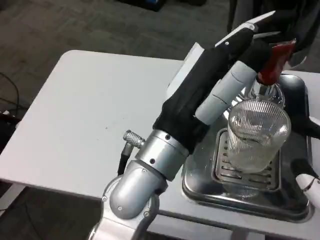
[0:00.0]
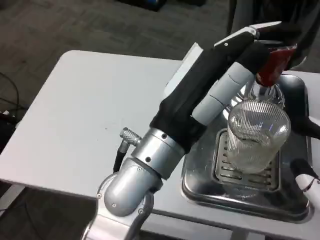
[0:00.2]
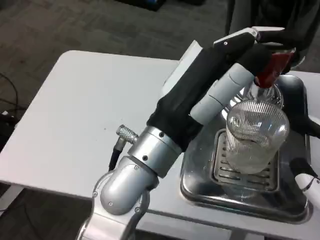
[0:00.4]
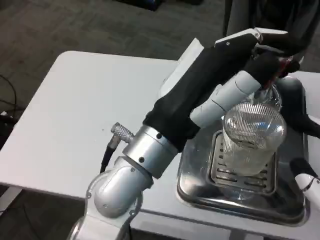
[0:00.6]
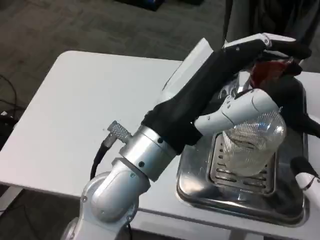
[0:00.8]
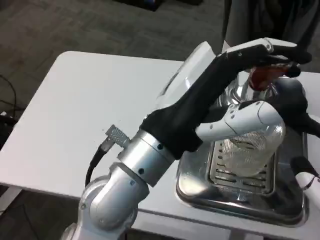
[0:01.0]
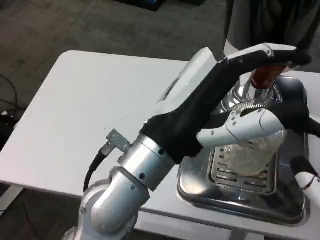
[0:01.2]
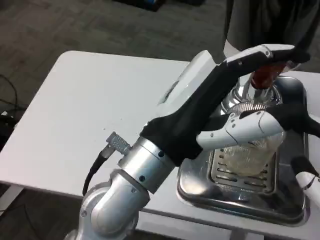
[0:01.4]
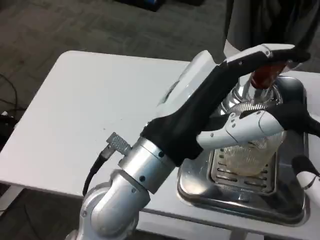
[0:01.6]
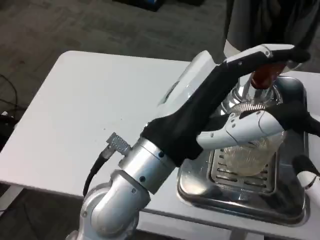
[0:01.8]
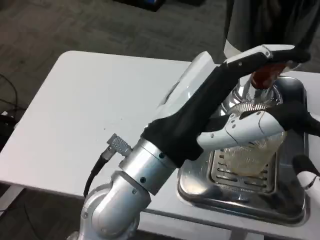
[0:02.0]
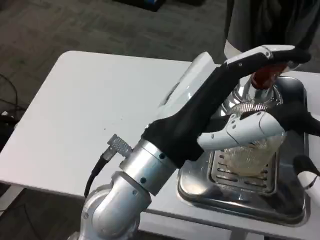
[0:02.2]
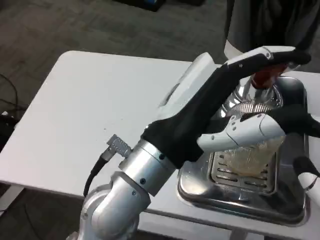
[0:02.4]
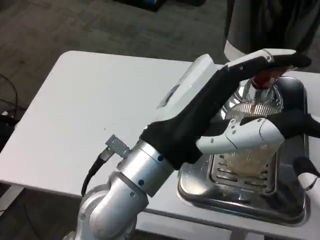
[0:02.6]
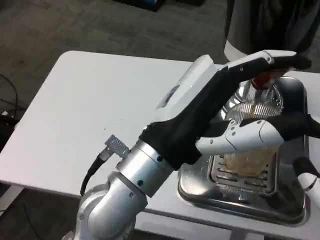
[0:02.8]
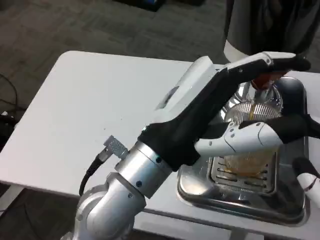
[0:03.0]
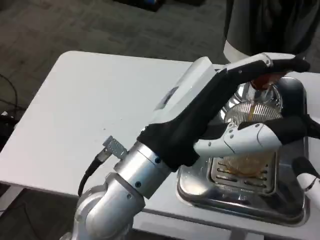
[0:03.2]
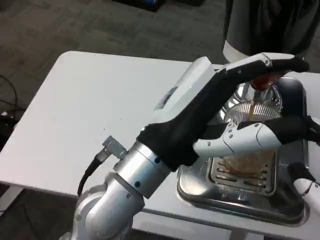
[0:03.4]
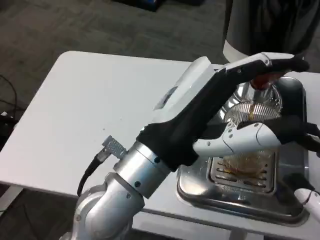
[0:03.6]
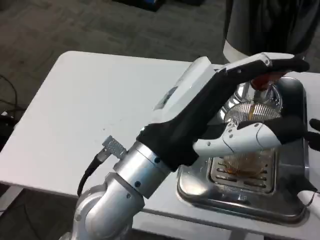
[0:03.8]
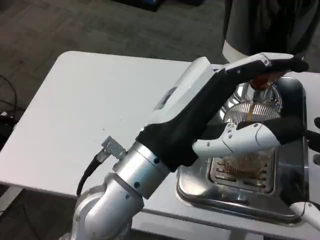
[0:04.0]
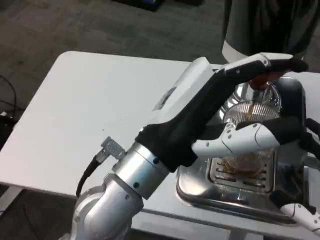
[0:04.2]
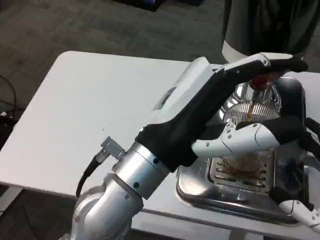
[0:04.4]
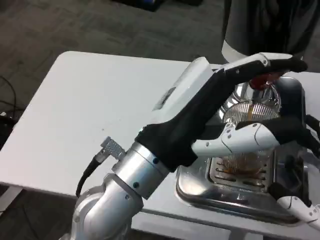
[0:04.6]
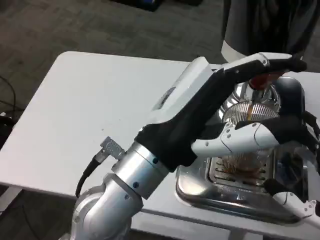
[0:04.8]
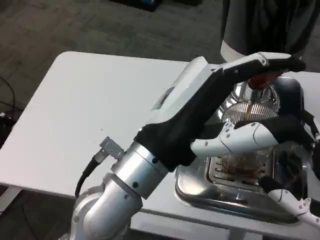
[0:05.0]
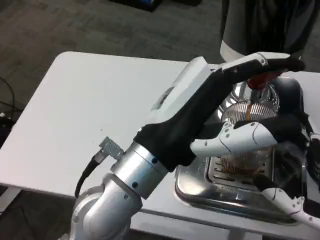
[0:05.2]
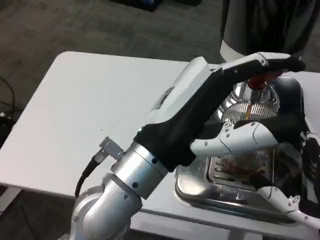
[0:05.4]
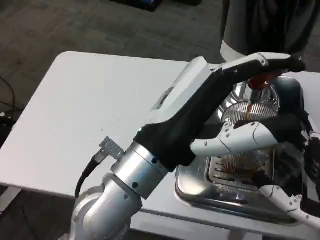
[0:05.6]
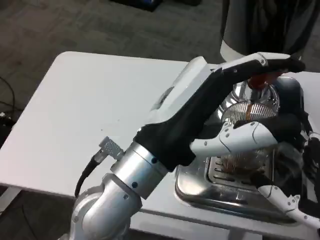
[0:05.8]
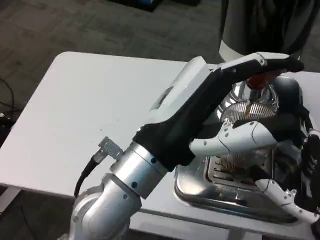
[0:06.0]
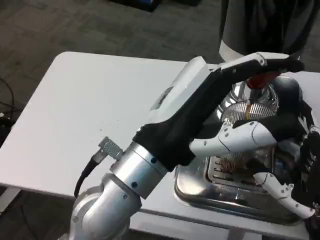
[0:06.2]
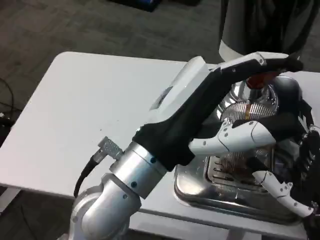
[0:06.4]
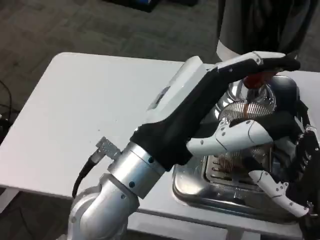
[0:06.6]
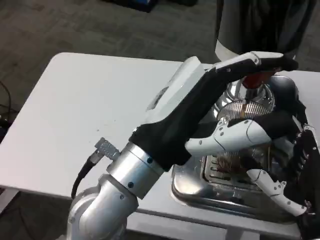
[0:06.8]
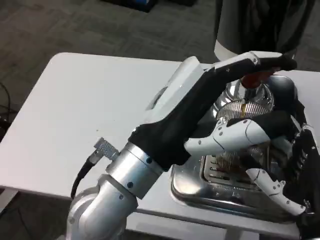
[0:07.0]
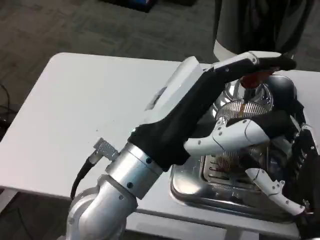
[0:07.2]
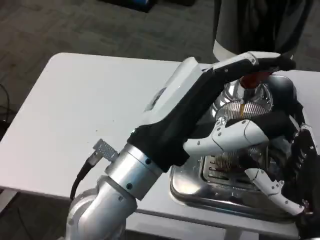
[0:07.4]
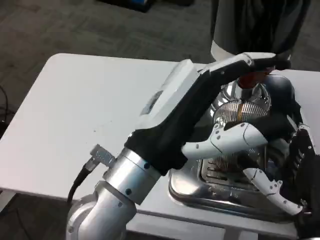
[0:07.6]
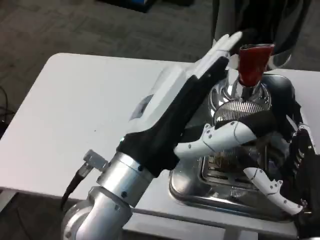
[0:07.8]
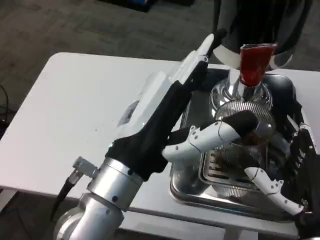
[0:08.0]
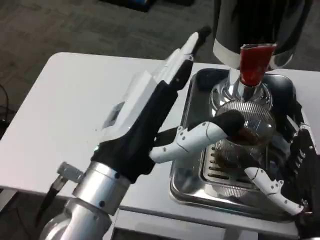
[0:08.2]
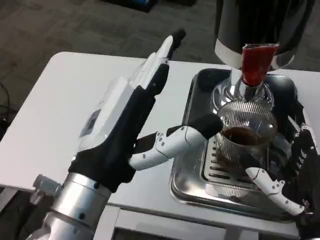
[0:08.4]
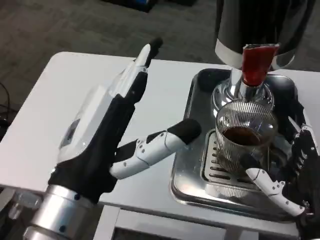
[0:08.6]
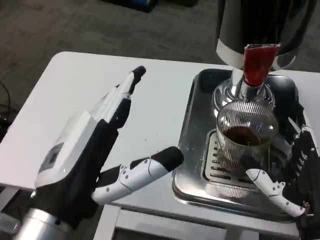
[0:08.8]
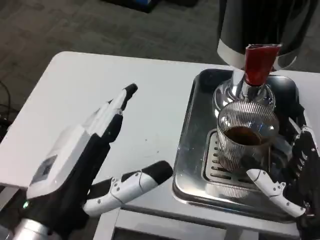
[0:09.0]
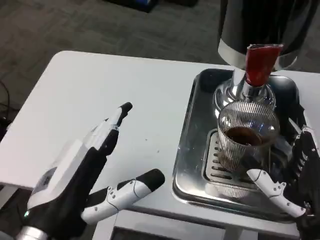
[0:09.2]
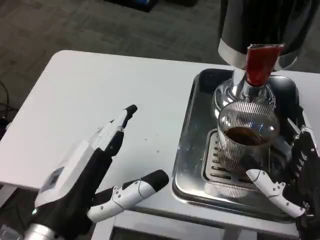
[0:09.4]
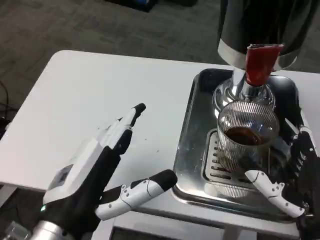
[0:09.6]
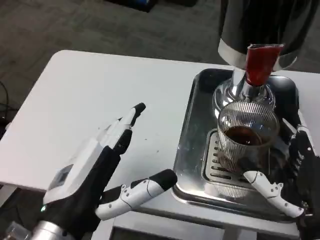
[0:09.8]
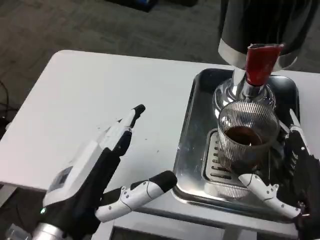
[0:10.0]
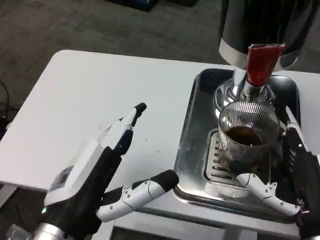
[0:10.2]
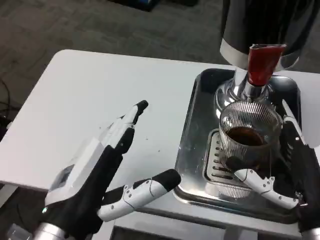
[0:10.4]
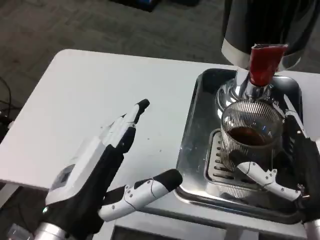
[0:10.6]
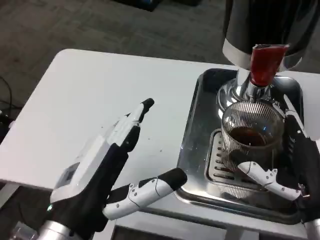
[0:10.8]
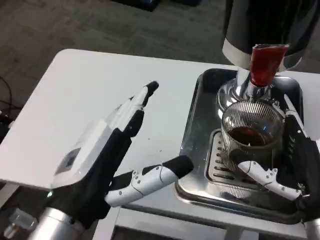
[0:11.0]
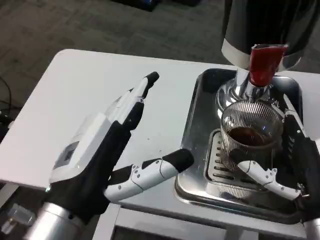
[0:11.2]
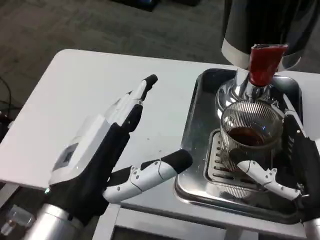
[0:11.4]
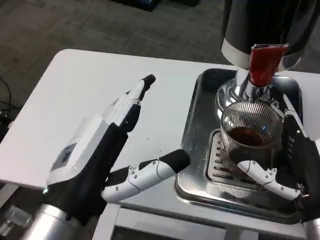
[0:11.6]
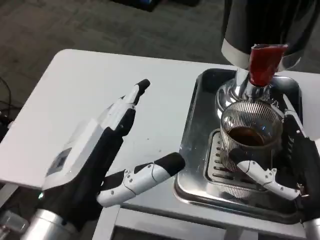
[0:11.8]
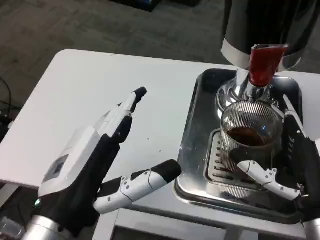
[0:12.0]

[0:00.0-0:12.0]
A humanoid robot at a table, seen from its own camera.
Task of the whole recording: Grasp the cup under the faucet to collect the drink, then remove the cup.
0:01.6 to 0:03.0: Both hands stay put.
0:03.0 to 0:04.4: The right hand moves about 5 cm.
0:04.4 to 0:06.0: The right hand ends up about 5 cm from where it was.
0:07.6 to 0:09.0: The left hand moves to the left and backward, approximately 10 cm.
0:10.4 to 0:12.0: There are only small adjustments of the hands.

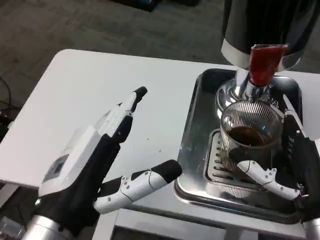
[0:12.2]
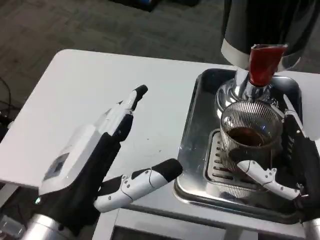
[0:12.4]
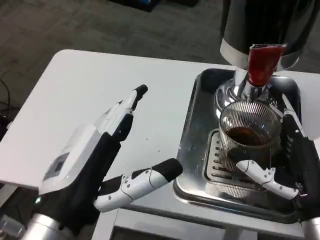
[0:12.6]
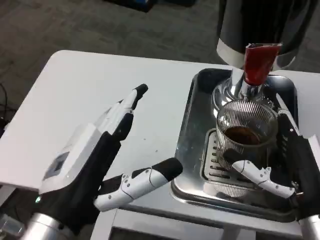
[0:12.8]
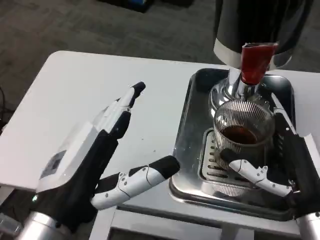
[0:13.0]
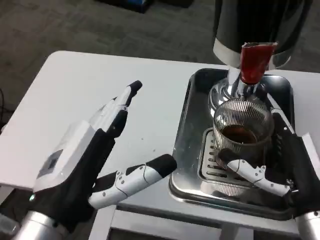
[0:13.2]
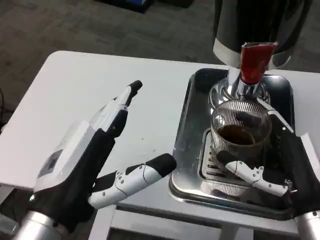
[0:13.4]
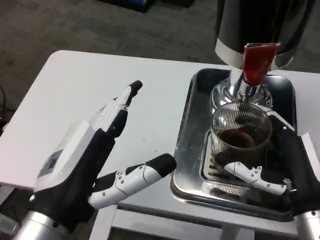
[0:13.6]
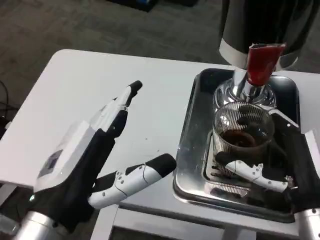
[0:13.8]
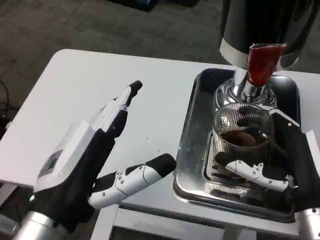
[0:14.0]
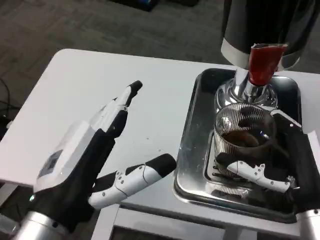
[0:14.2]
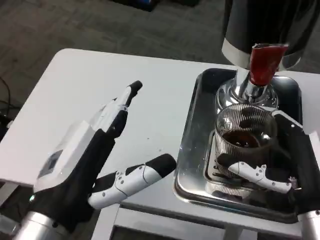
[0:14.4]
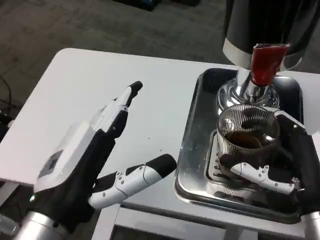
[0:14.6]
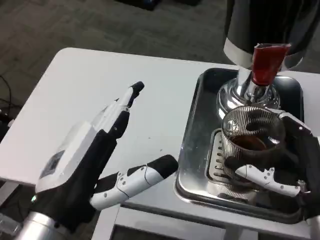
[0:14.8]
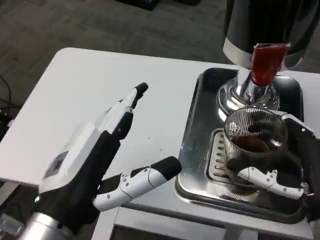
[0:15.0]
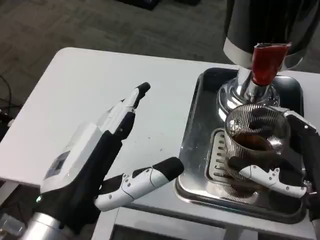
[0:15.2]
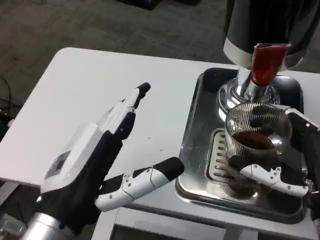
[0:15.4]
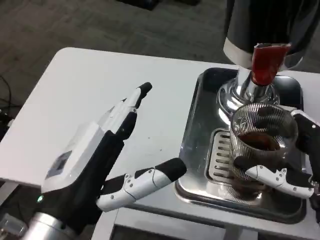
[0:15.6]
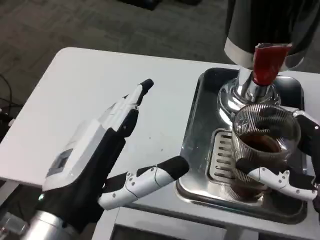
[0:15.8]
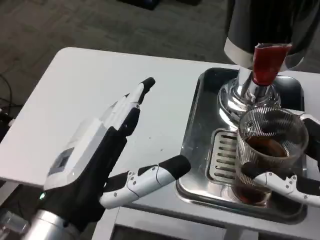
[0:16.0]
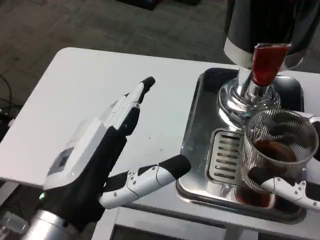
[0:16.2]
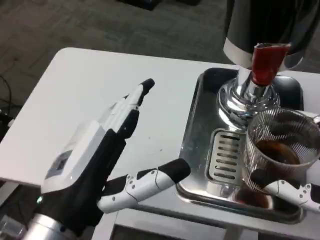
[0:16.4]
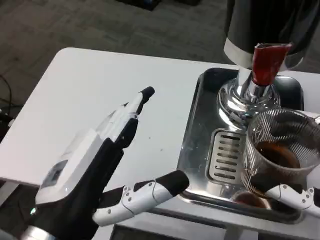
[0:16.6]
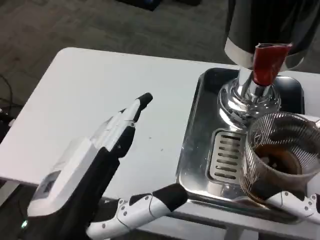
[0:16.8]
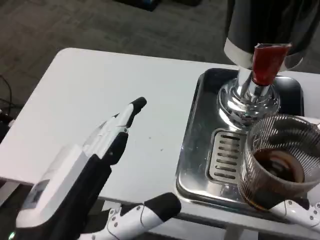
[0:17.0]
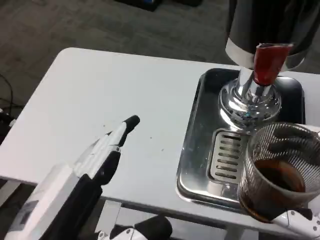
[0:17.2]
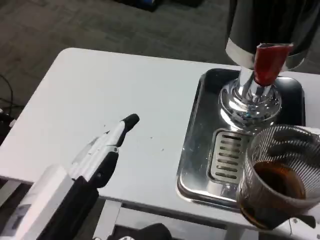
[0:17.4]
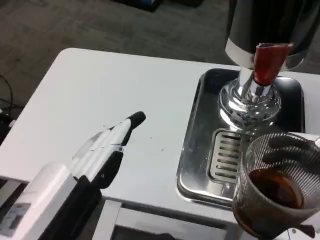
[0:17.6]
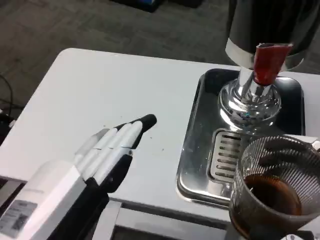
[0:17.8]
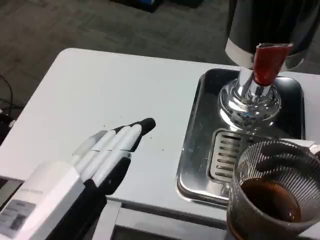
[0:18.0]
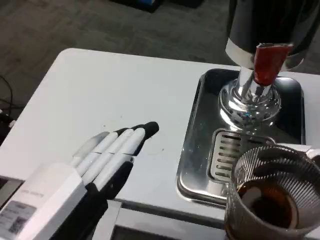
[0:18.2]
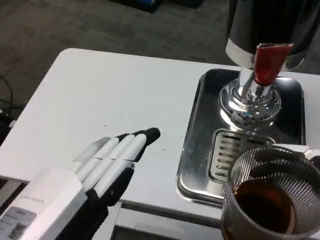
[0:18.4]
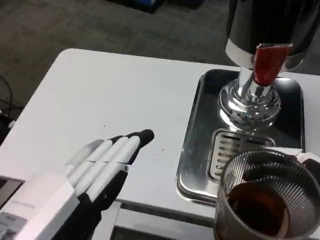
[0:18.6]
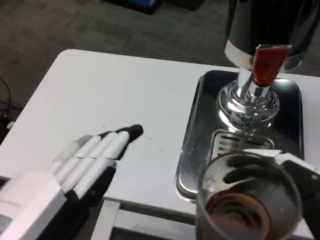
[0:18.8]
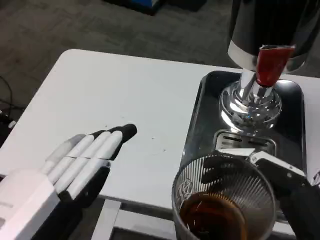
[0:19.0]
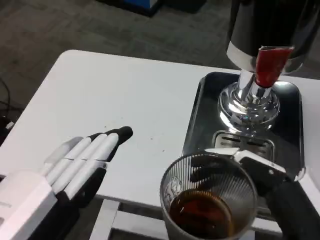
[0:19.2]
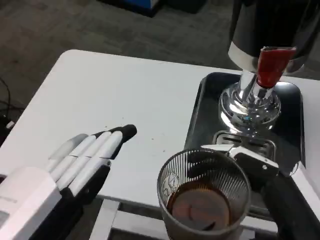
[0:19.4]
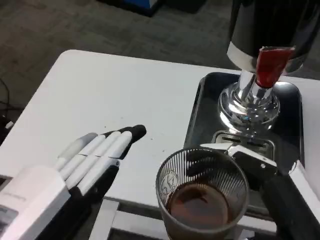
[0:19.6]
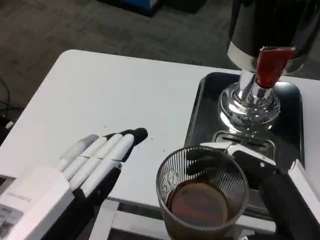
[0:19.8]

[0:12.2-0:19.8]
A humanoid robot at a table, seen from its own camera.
Task of the whole recording: Grasp the cup under the faucet to collect the drink, then remove the cup.
0:15.2 to 0:16.8: The right hand is displaced backward by approximately 5 cm.
0:16.8 to 0:18.2: The hands both shift backward by roughly 5 cm.
0:18.2 to 0:19.8: The right hand moves roughly 5 cm.

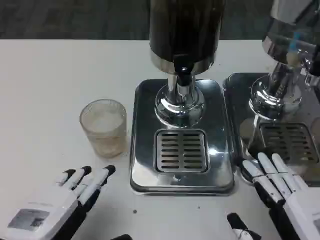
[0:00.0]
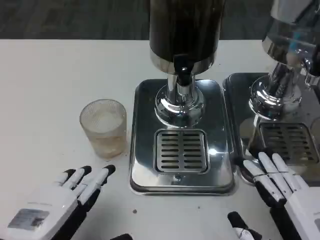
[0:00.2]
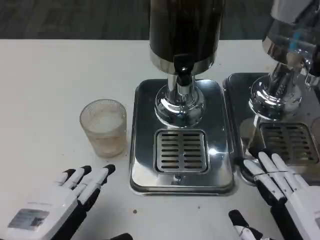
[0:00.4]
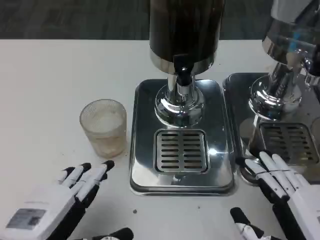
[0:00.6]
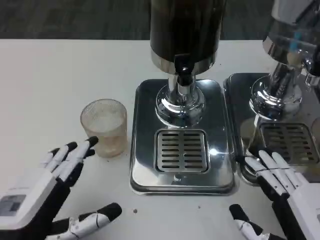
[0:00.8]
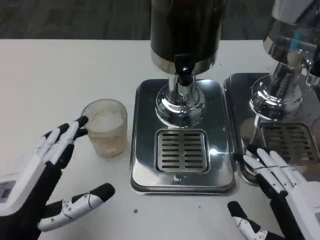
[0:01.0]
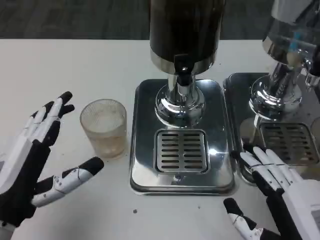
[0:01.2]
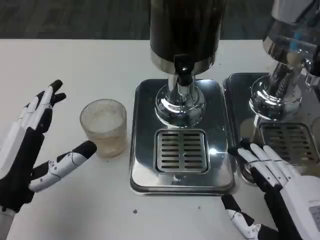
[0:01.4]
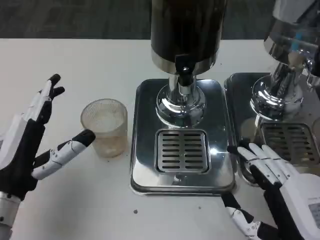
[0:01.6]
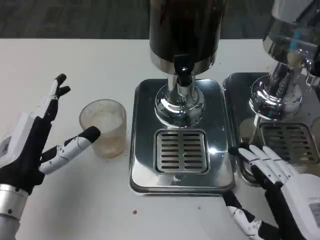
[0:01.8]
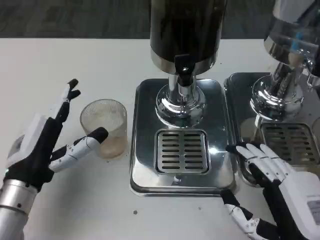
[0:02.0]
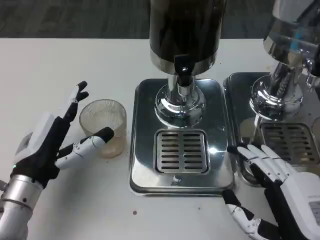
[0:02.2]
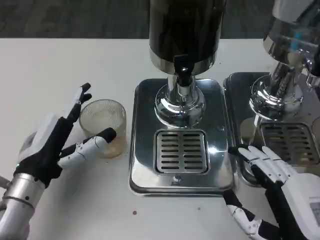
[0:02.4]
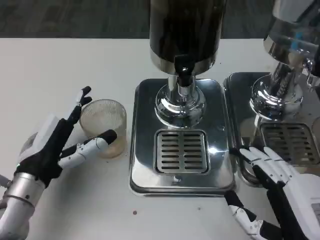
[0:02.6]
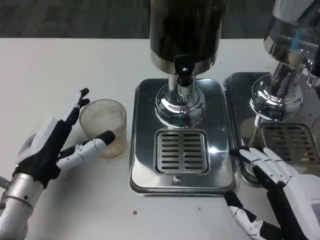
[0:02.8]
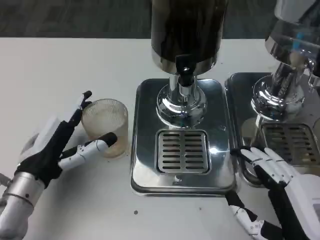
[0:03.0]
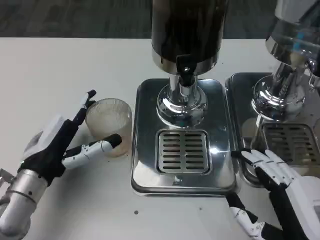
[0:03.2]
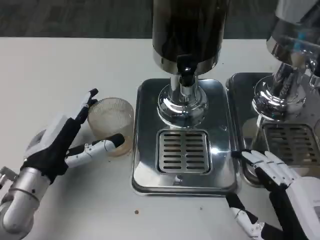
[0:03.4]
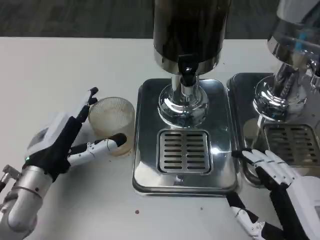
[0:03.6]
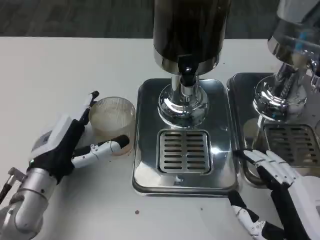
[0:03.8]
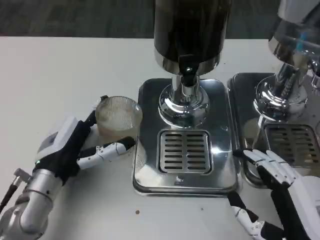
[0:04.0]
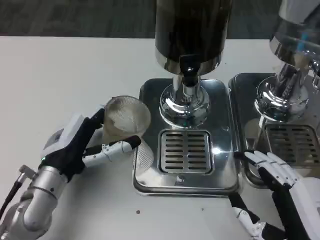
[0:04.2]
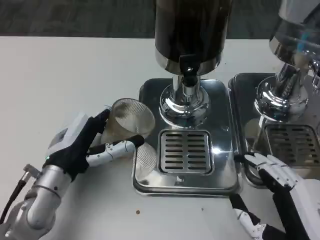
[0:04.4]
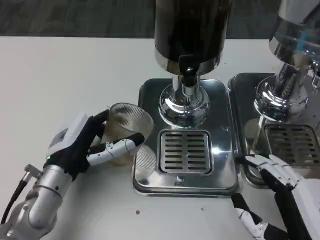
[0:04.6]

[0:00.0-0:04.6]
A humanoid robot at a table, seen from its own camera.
Task of the whole recording: Grasp the cup under the faucet to collect the drink, then remove the cup.
0:00.0 to 0:01.6: The left hand goes some 10 cm forward.
0:01.6 to 0:03.0: The left hand moves roughly 5 cm.
